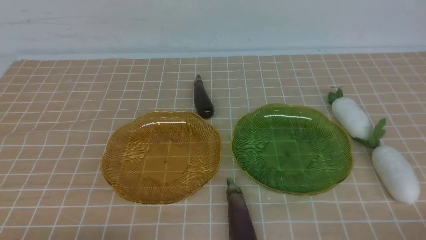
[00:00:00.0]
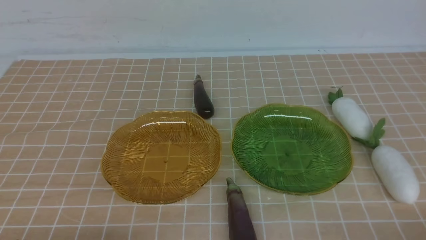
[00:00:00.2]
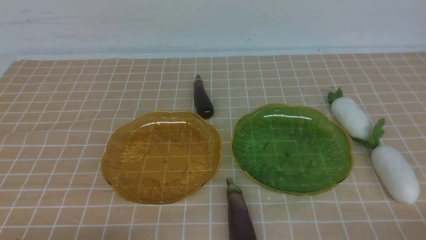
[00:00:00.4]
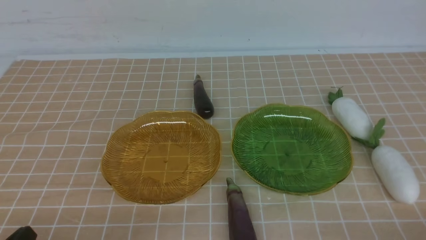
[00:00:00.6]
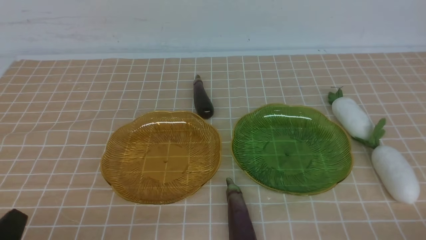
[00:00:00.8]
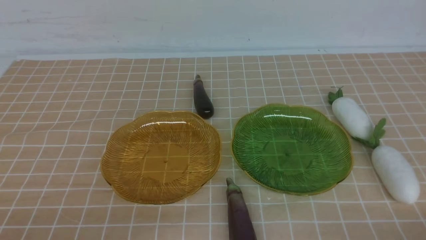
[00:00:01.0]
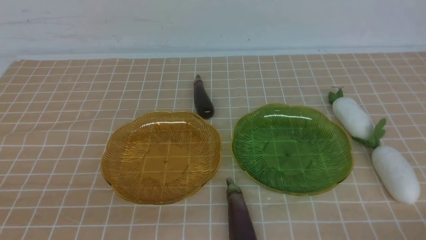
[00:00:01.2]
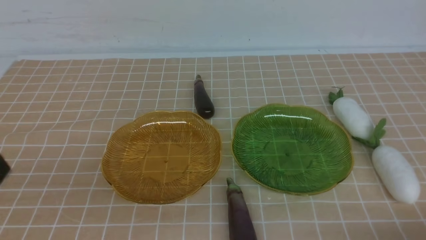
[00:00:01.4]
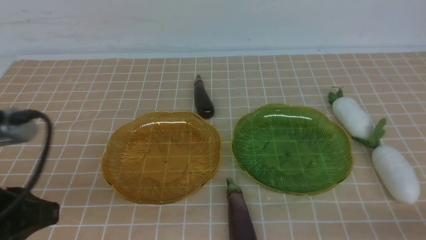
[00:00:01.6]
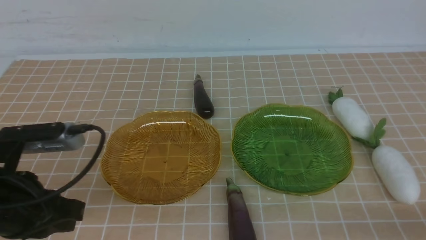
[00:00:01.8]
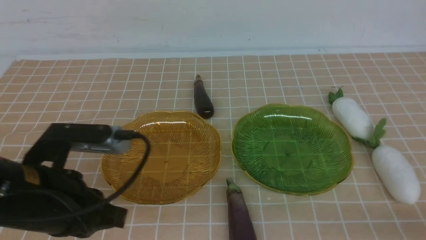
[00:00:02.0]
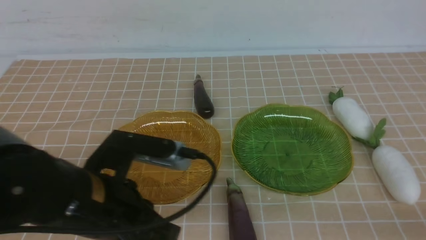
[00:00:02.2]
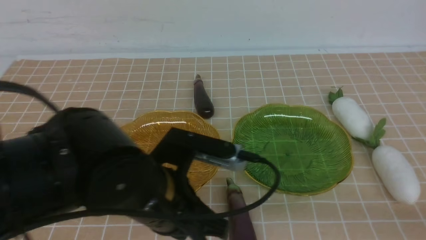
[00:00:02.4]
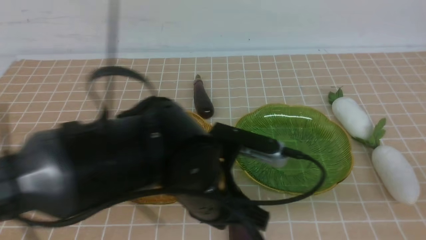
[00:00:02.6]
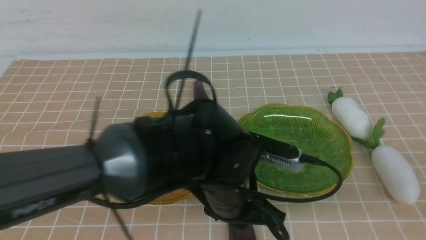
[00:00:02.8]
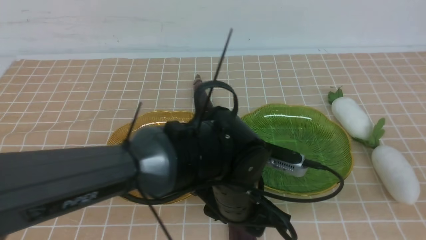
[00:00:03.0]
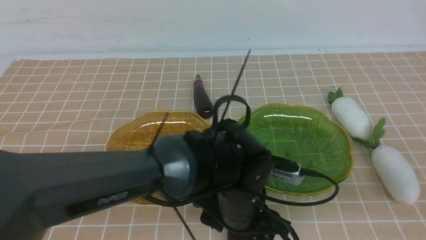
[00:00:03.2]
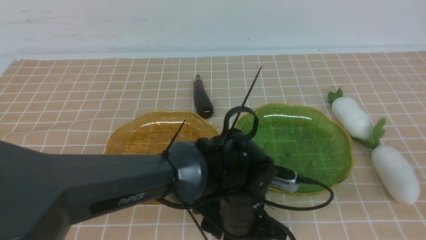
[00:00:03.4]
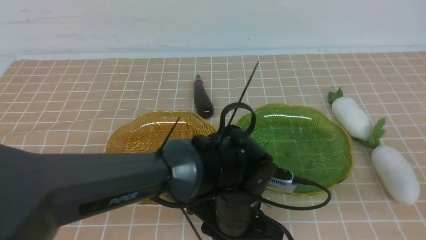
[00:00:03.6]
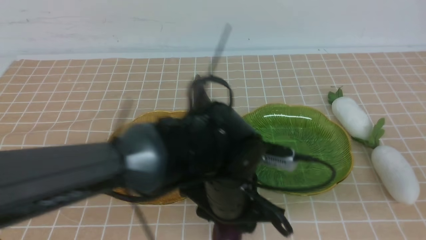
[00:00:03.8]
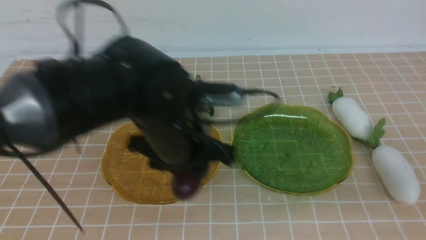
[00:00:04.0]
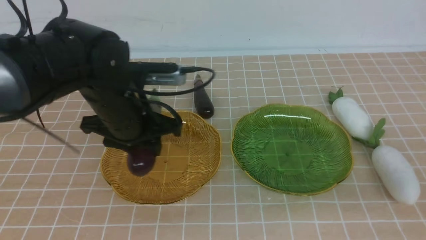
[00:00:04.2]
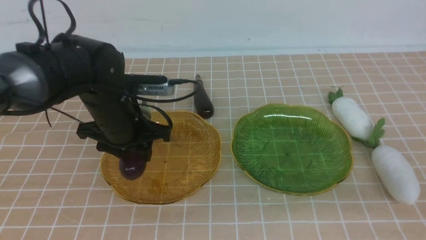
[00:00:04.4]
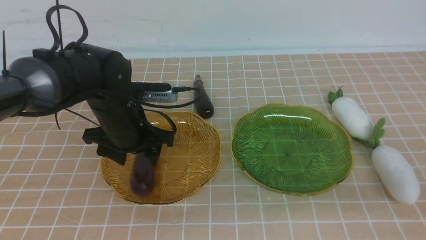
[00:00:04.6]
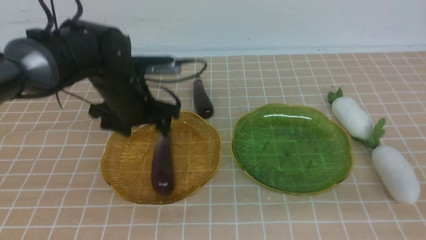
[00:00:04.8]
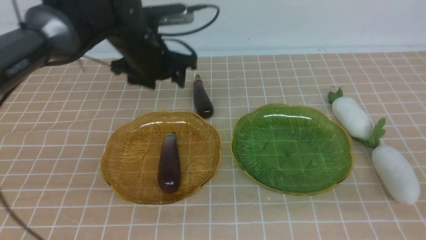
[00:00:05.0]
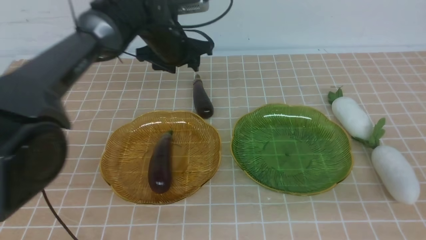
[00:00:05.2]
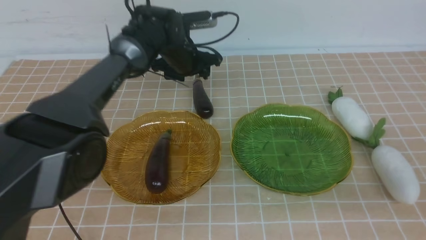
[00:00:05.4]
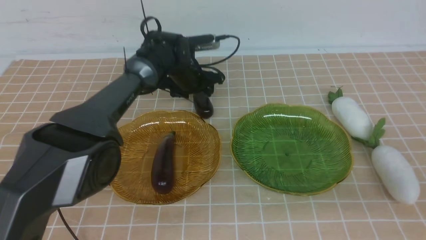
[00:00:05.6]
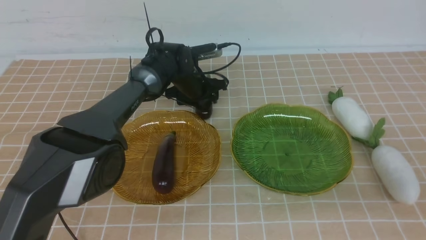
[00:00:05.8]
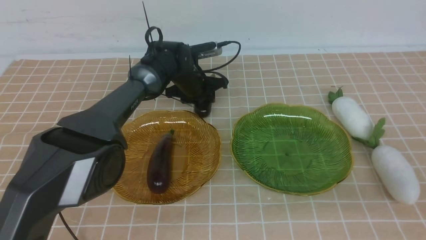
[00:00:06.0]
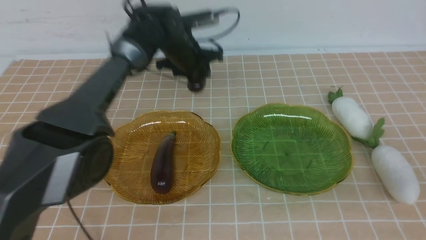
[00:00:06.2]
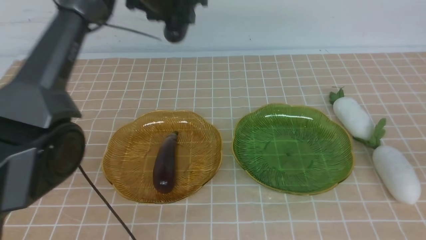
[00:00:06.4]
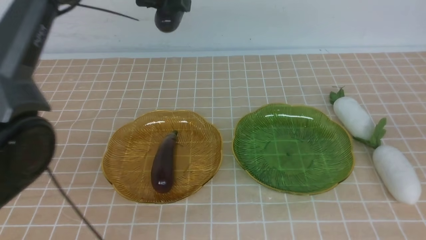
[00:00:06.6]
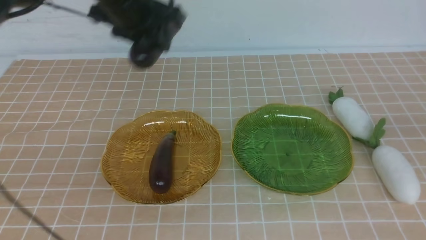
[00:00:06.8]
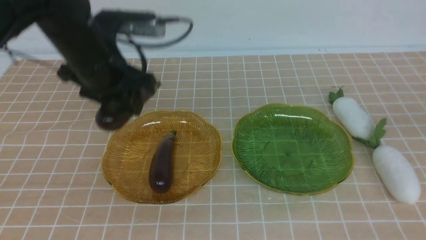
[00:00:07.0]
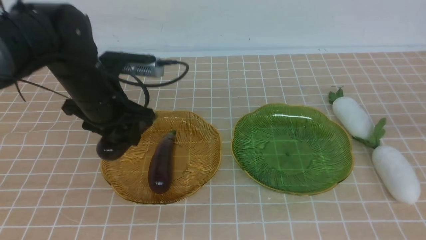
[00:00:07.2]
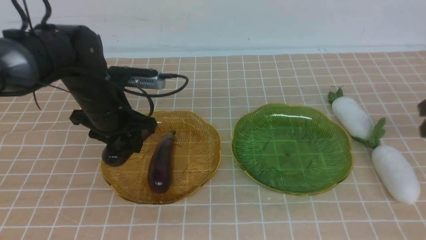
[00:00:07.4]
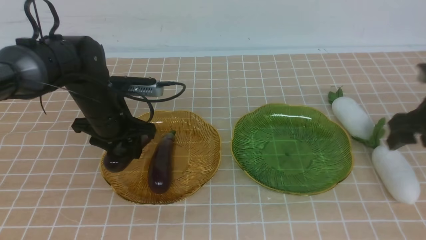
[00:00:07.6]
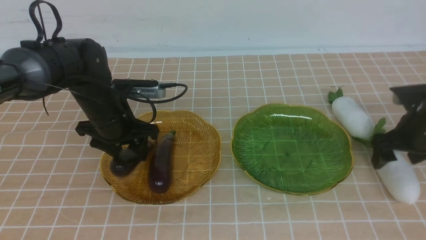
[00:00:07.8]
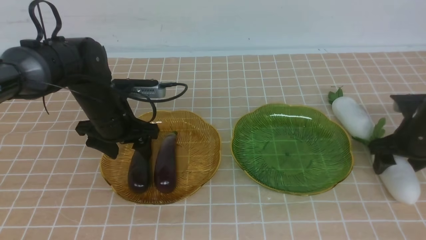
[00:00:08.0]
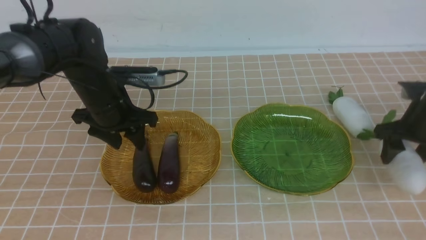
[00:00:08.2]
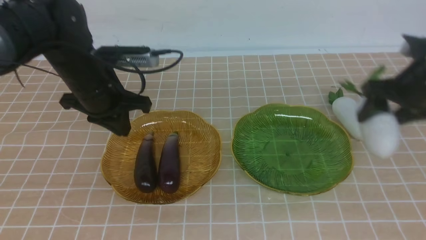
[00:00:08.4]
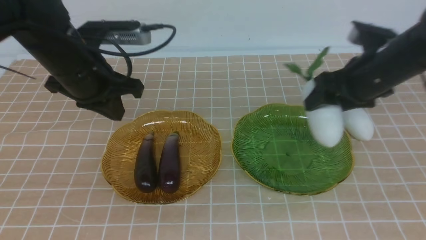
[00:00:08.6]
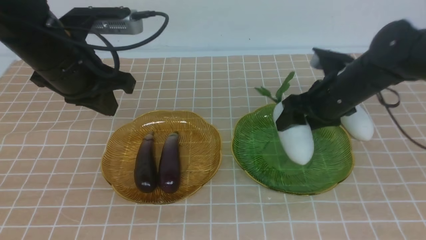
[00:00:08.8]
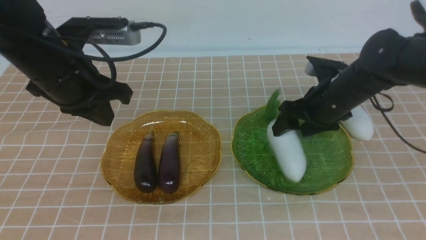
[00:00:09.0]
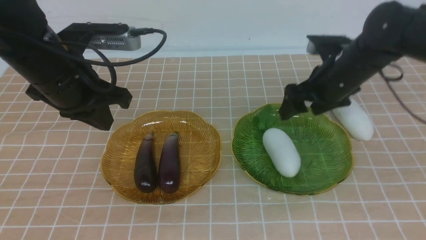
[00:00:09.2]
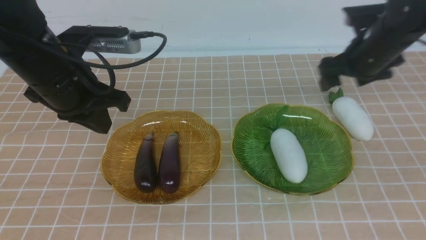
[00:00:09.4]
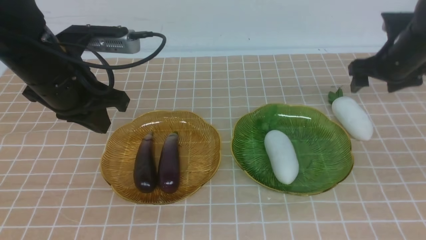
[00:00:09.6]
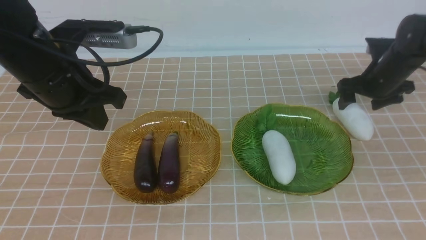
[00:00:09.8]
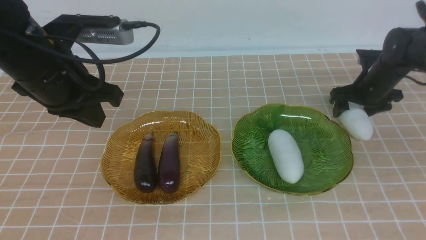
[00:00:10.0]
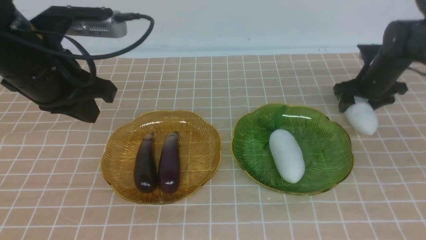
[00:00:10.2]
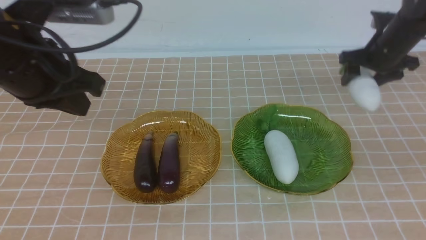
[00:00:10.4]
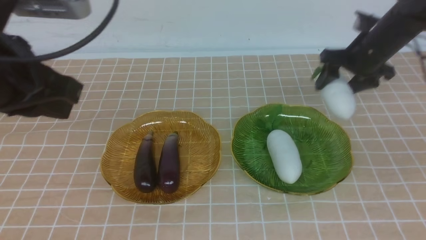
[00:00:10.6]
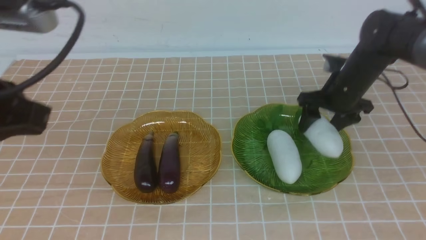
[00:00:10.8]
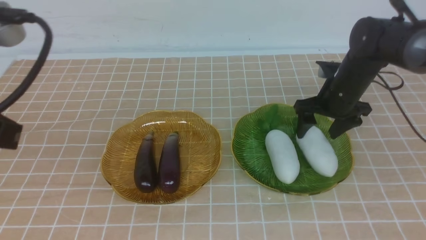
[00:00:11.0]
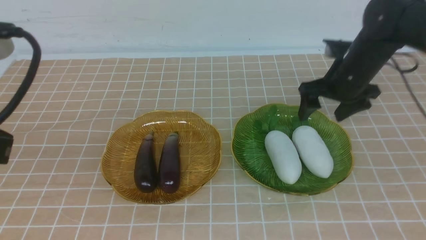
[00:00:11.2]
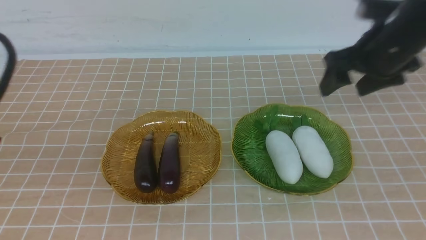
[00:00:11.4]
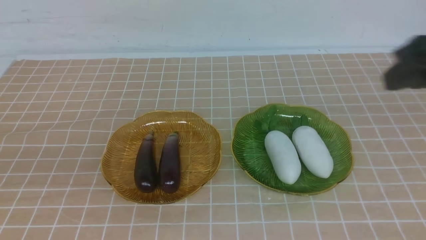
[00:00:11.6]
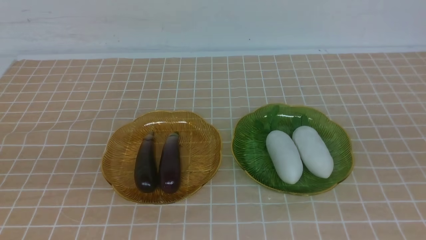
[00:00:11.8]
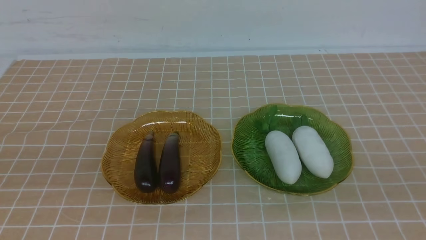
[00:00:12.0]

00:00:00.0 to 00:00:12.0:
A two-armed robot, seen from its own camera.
Step, 00:00:00.0 to 00:00:08.0: use the left arm to grab an eggplant and put it into the left plate.
Step, 00:00:08.2 to 00:00:11.2: use the right arm to grab a radish and put it into the right plate.
00:00:00.0 to 00:00:01.6: The left gripper goes some 15 cm upward, forward and to the right.
00:00:01.6 to 00:00:03.0: The right gripper goes approximately 10 cm upward. Meanwhile the left gripper moves to the right and downward, approximately 25 cm, and opens up.
00:00:03.0 to 00:00:04.4: The left gripper moves to the left and forward, about 20 cm.
00:00:04.4 to 00:00:06.0: The left gripper travels forward by approximately 20 cm.
00:00:06.0 to 00:00:07.6: The right gripper travels forward and downward by roughly 25 cm, and opens its fingers. Meanwhile the left gripper travels backward and to the left by some 20 cm, and travels upward and back again, some 20 cm each way.
00:00:07.6 to 00:00:09.0: The left gripper heads upward and backward, covering roughly 15 cm, and closes up, while the right gripper moves to the left, roughly 15 cm.
00:00:09.0 to 00:00:10.4: The right gripper goes to the right and returns, approximately 10 cm each way; the left gripper goes approximately 15 cm backward and upward.
00:00:10.4 to 00:00:12.0: The left gripper is displaced backward and downward by roughly 20 cm. Meanwhile the right gripper goes roughly 40 cm backward, and closes.

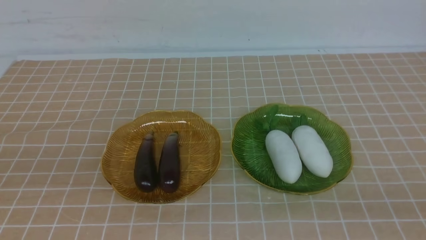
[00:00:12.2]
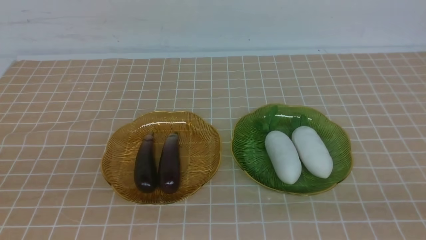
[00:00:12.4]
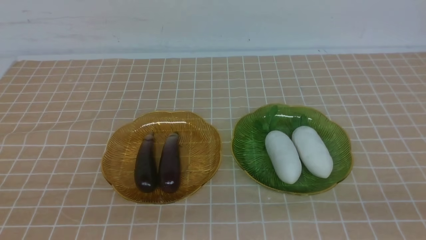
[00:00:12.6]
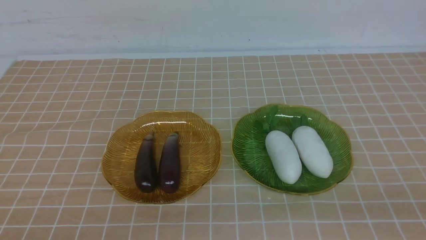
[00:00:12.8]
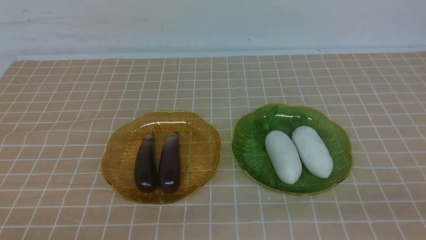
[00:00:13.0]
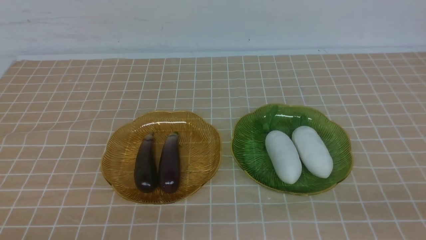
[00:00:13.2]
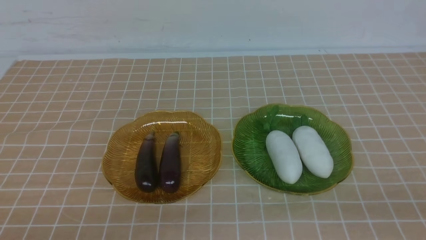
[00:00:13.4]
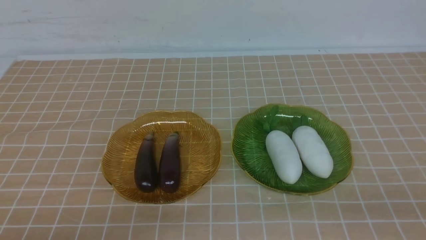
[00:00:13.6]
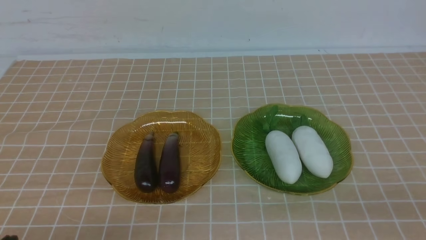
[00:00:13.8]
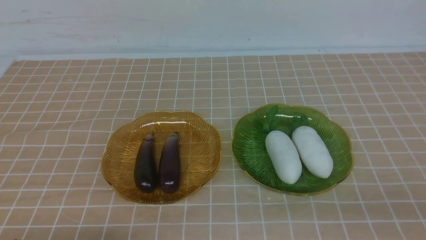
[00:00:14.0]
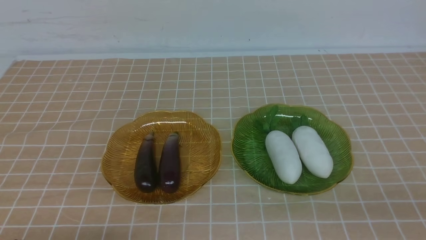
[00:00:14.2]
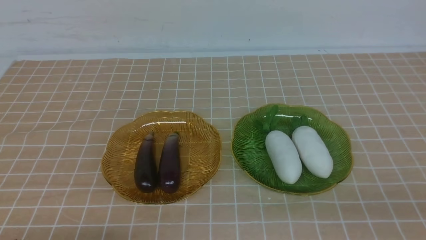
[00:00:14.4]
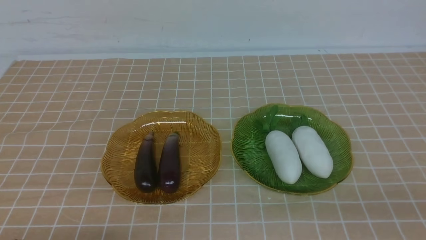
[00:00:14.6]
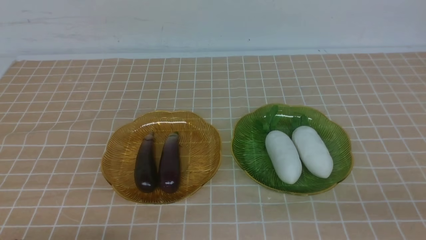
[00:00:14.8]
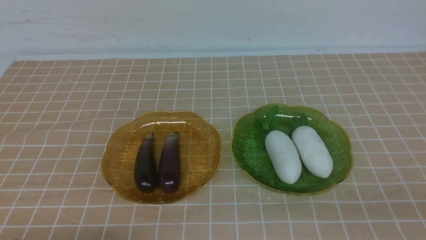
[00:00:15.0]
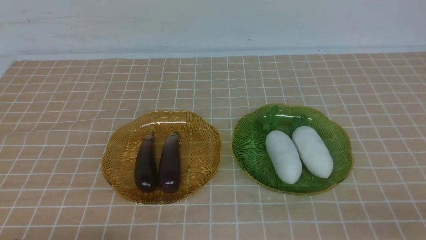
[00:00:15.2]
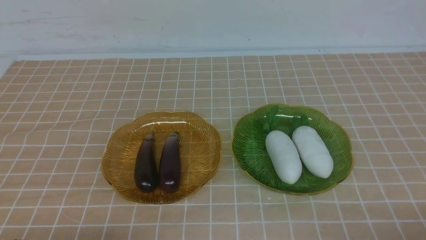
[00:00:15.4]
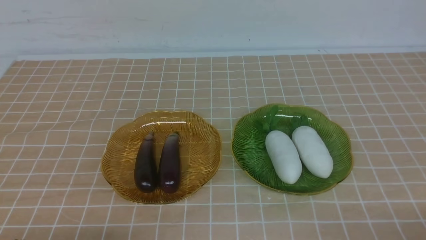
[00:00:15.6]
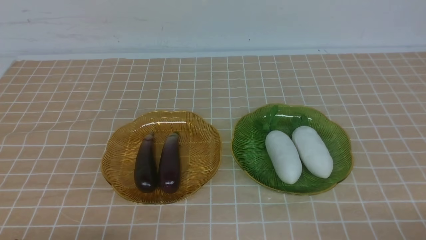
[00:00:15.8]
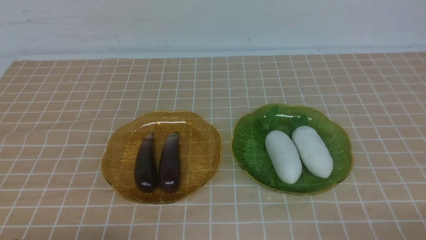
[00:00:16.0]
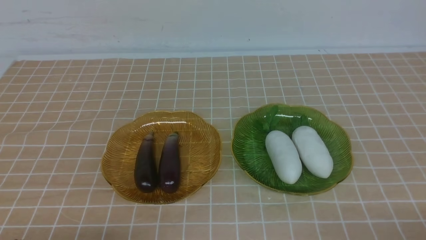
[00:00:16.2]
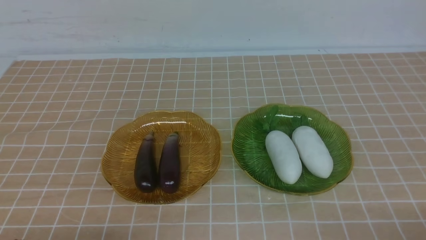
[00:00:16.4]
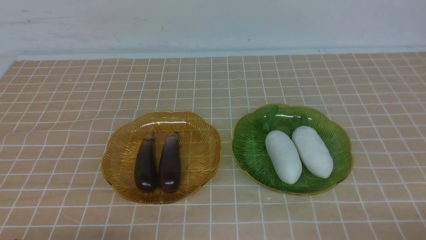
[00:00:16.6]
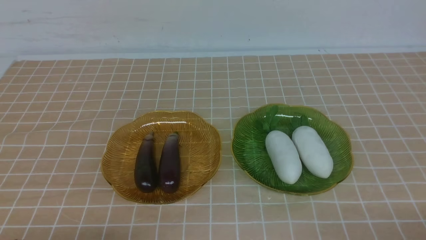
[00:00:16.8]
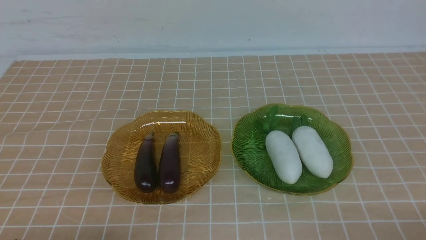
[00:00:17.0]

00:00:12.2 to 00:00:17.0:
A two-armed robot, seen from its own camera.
00:00:15.4 to 00:00:17.0: Both grippers stay about where they are.
